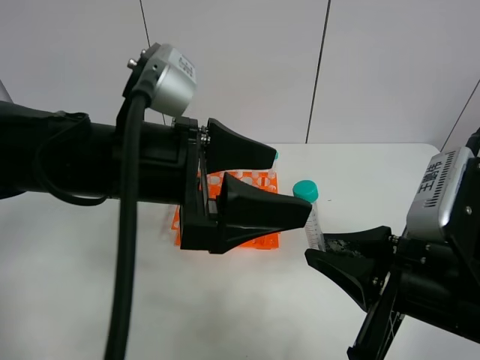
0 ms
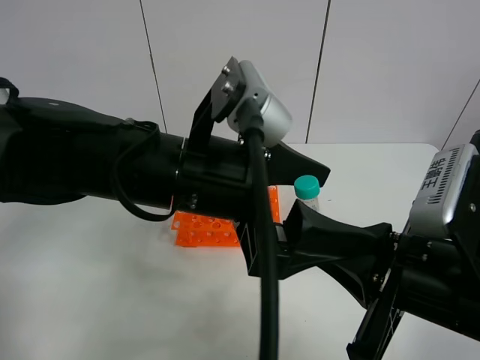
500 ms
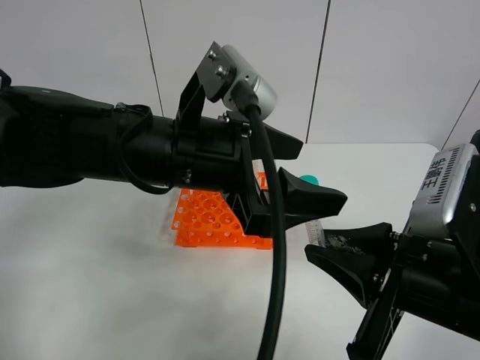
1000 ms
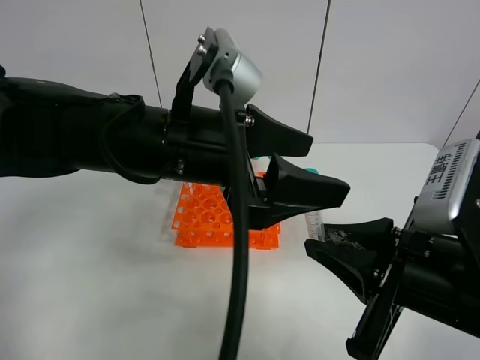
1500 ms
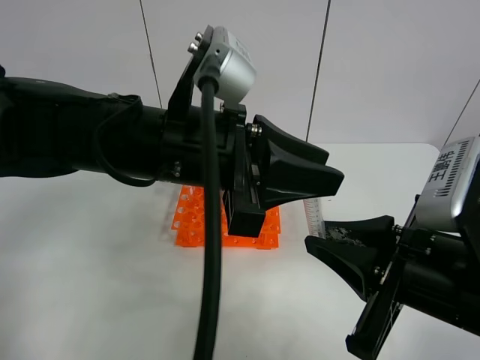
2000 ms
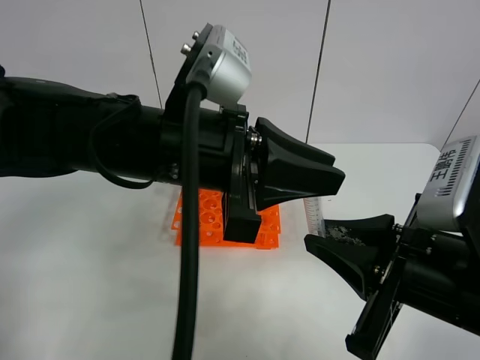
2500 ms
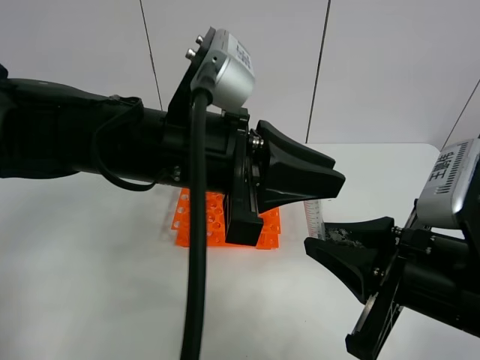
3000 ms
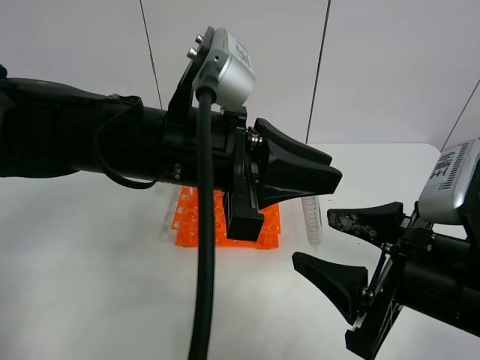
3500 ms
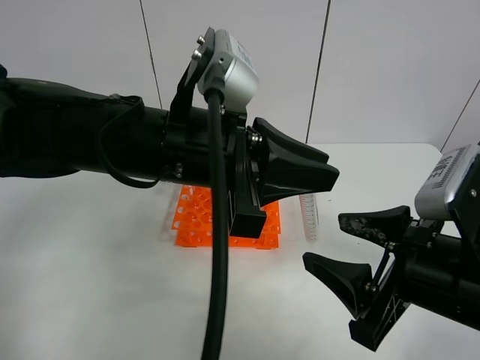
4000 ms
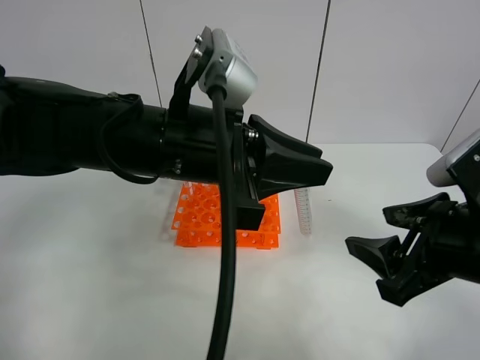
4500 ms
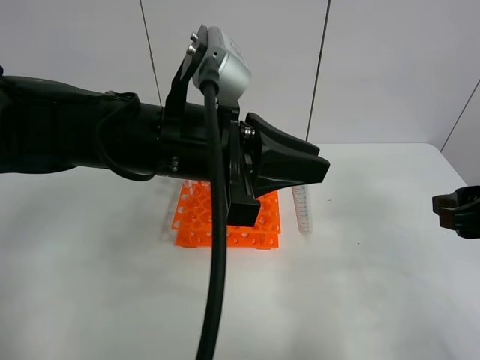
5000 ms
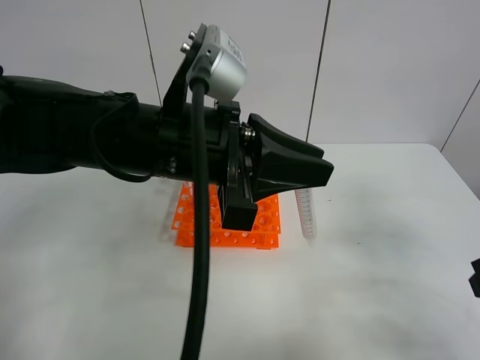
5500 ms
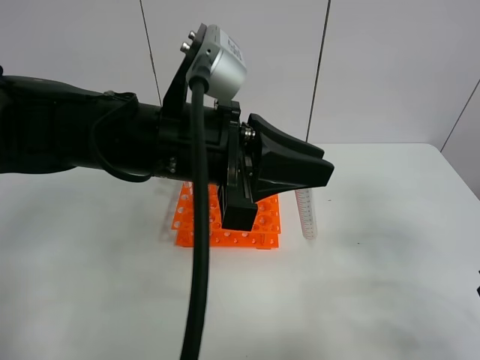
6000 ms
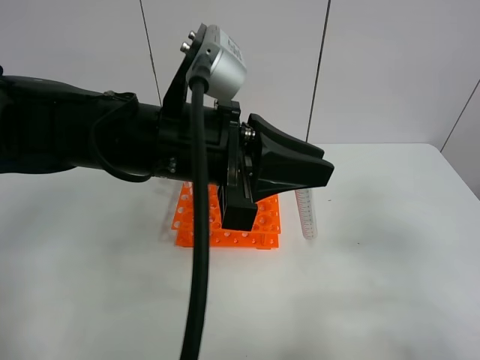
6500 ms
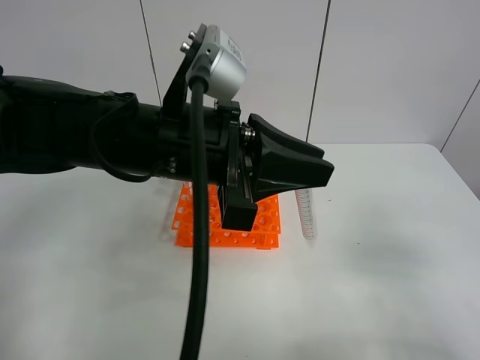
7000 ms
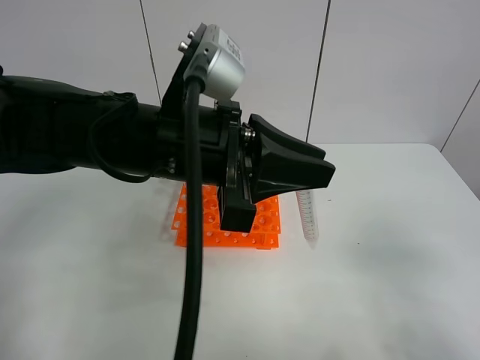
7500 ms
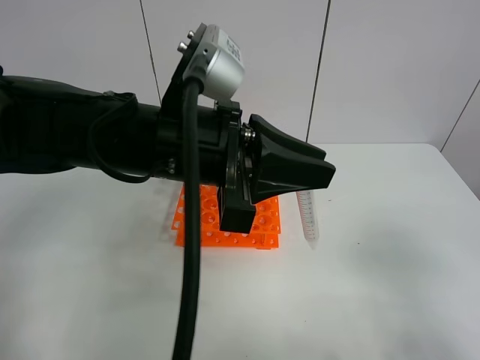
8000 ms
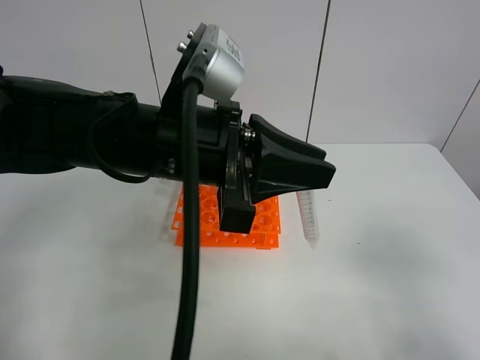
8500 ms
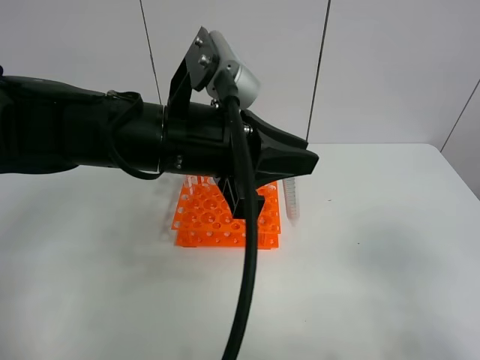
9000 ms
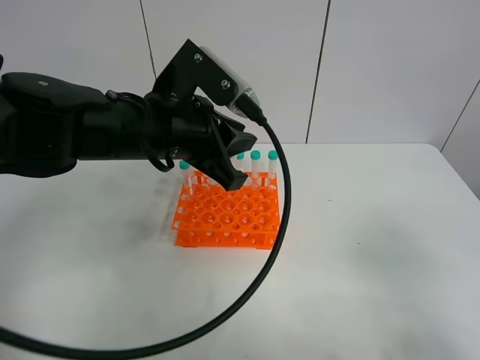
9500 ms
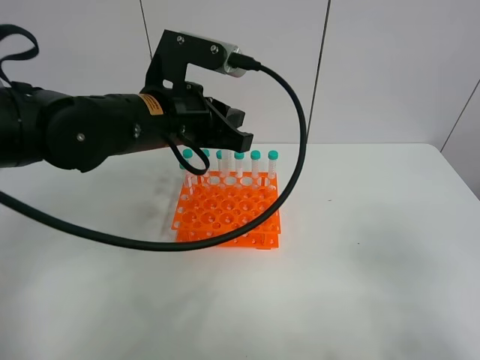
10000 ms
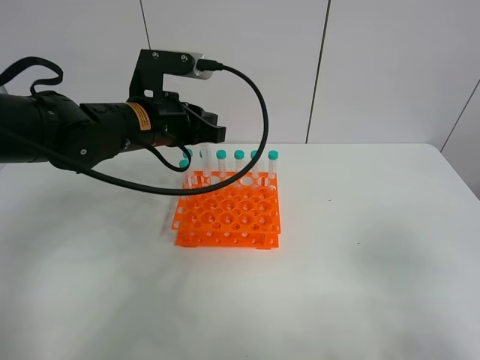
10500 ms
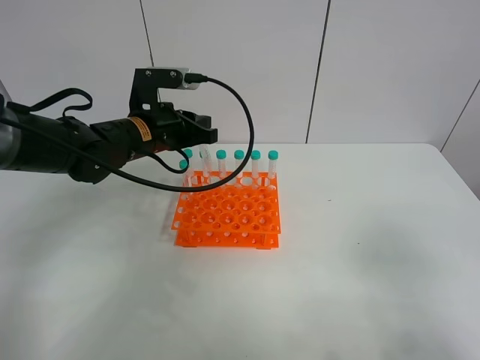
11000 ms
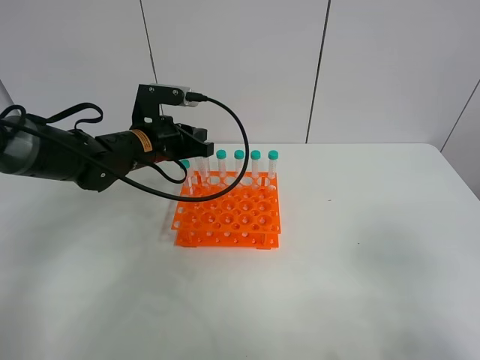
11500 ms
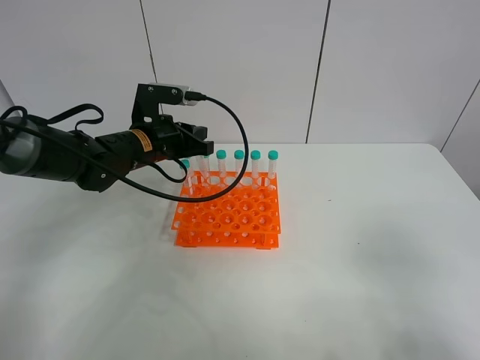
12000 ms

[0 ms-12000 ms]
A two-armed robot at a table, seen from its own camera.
Task of the whole recording: Put the test tube on the table back onto the test tube rack.
Step, 0 ms to 4000 ms: Move the test tube from the right gripper to the left gripper.
0 ms to 2000 ms: The left gripper closes.
2000 ms to 4000 ms: The right gripper opens its fingers.
4000 ms to 6000 ms: The right gripper heads to the right, covering approximately 10 cm.
6000 ms to 8000 ms: The right gripper goes some 10 cm backward.
8000 ms to 10000 ms: The left gripper is displaced forward by some 5 cm.
10000 ms to 12000 ms: The left gripper shifts approximately 15 cm downward, forward and to the left.

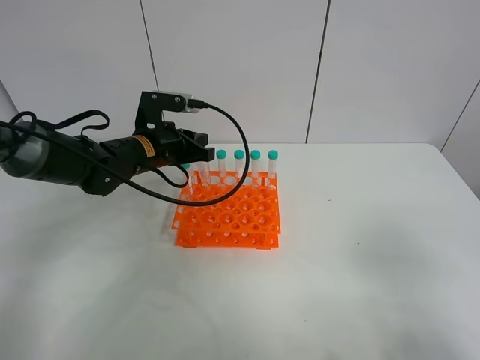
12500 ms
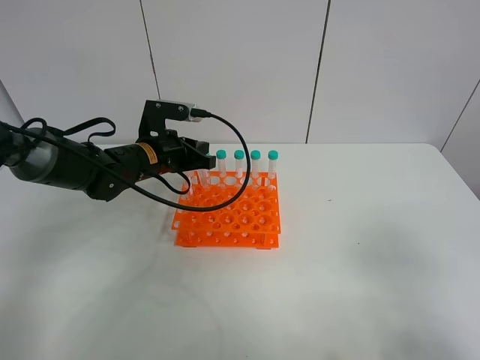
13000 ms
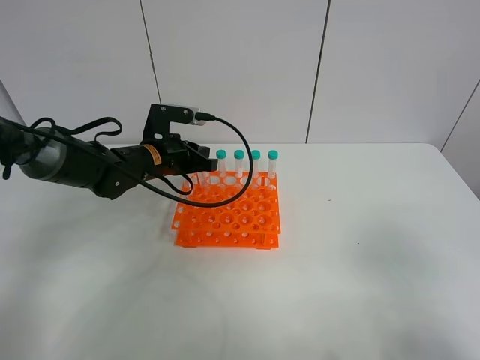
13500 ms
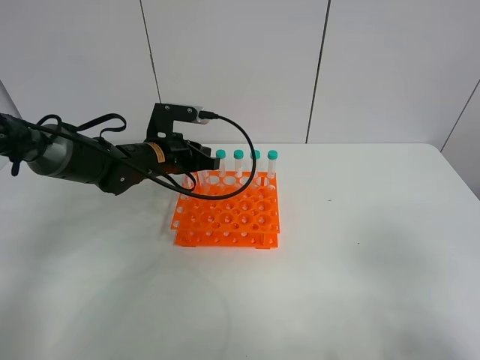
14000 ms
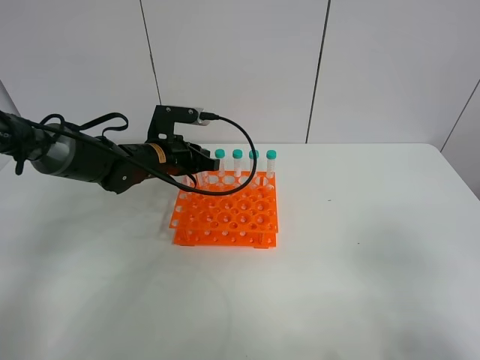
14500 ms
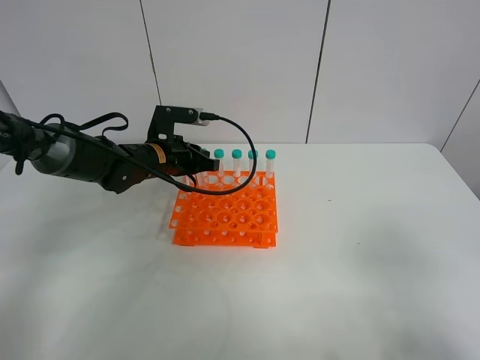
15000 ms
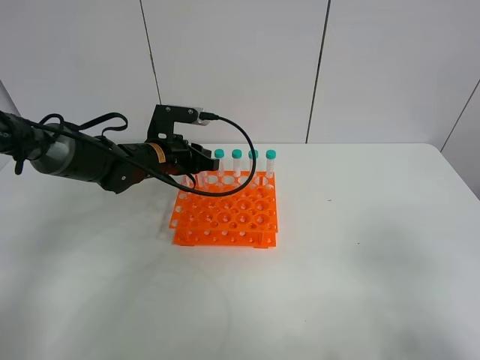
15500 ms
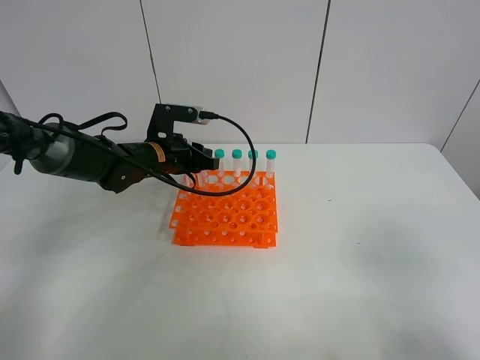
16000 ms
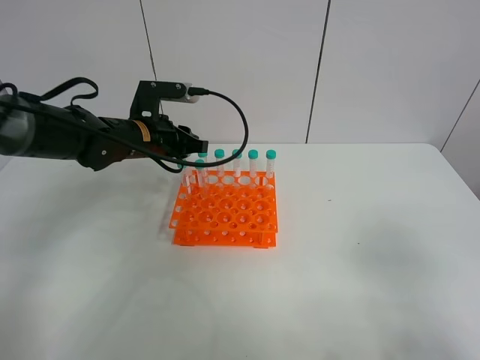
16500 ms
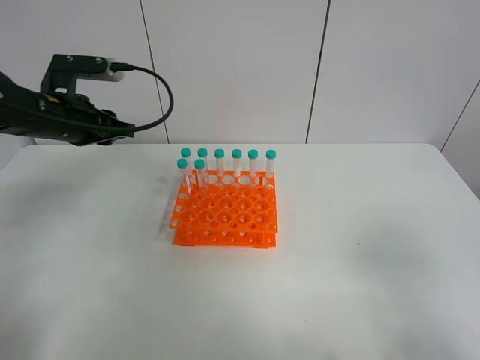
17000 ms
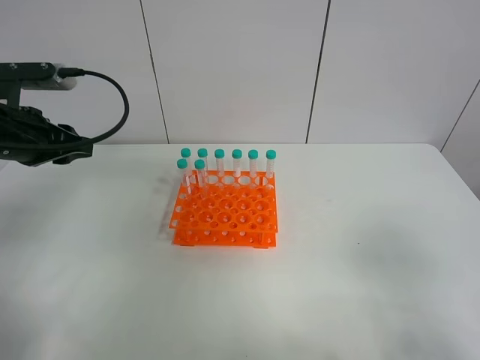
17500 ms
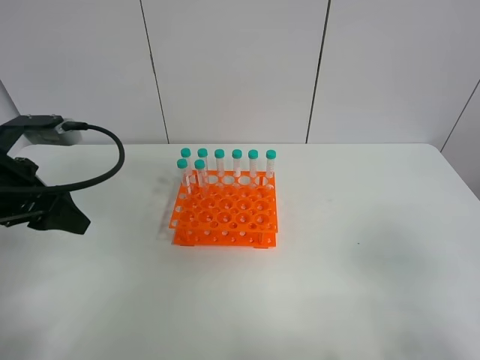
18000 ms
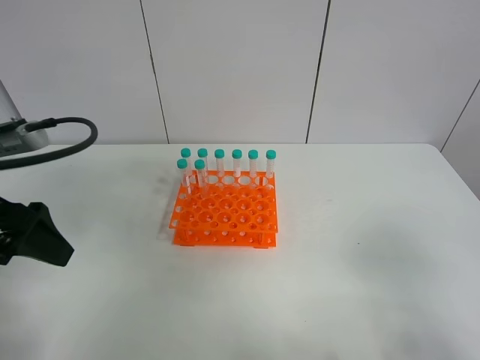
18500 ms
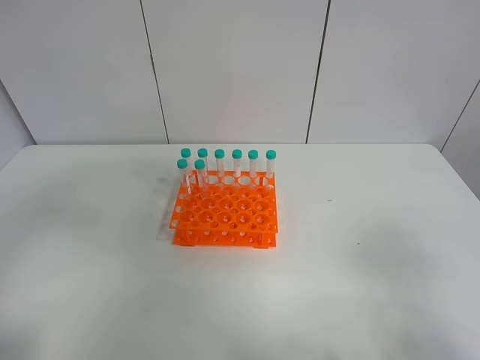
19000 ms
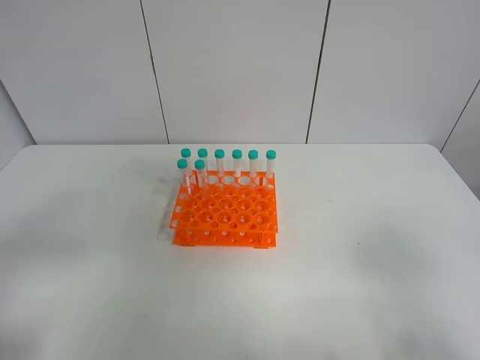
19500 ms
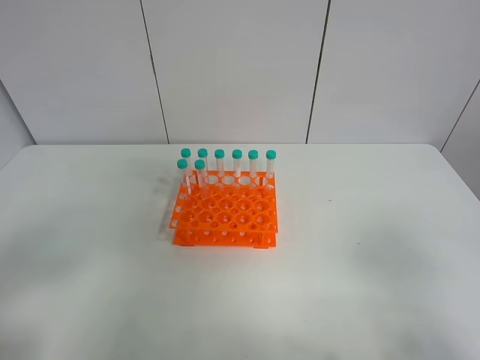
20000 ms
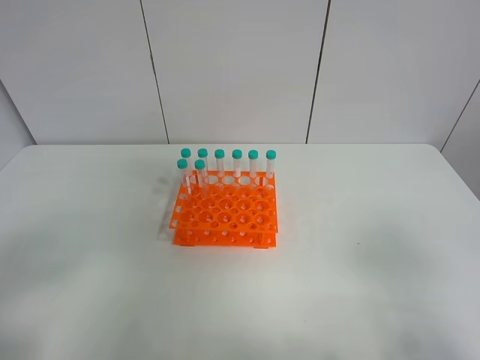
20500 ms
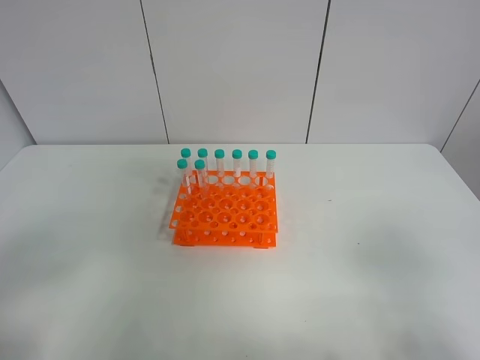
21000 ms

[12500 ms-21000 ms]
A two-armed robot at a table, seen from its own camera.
Task of the whole recording: Put the test tube on the table back onto the test tube rack.
Step, 12500 ms to 16500 ms: Place the test tube on the test tube rack with the left gripper.
12500 ms to 14500 ms: The grippers make only small movements.
14500 ms to 16500 ms: The left gripper moves upward, approximately 5 cm.
16500 ms to 19000 ms: The left gripper is displaced backward, to the left and upward by some 35 cm, and opens up.
